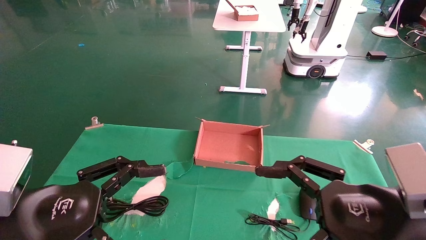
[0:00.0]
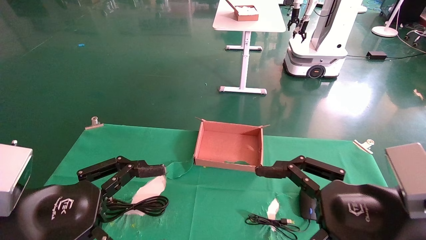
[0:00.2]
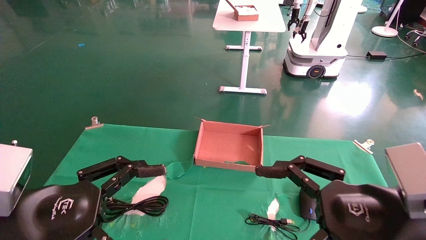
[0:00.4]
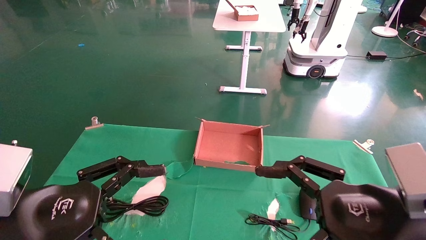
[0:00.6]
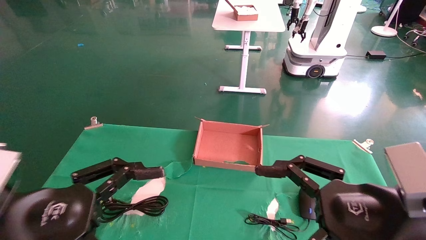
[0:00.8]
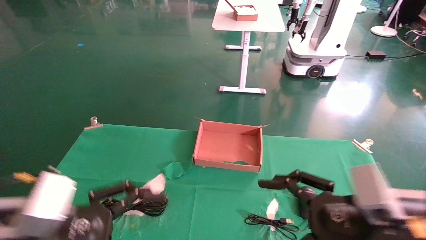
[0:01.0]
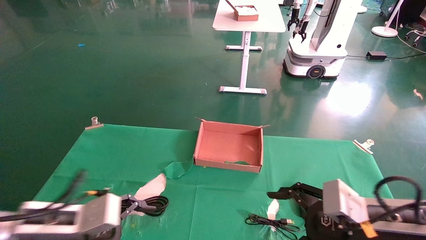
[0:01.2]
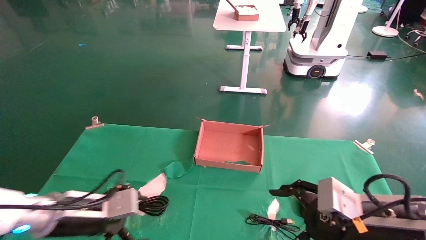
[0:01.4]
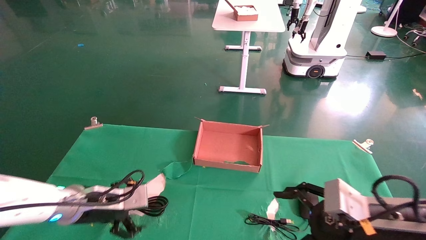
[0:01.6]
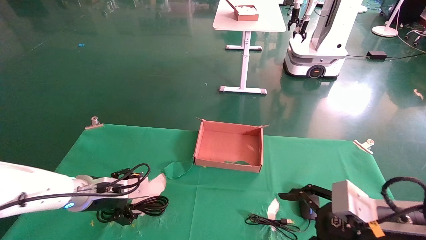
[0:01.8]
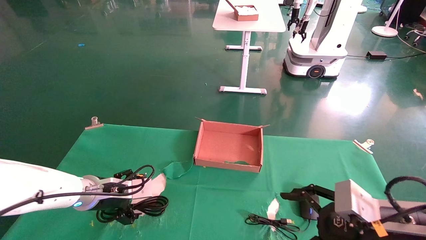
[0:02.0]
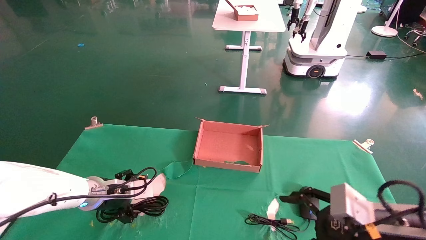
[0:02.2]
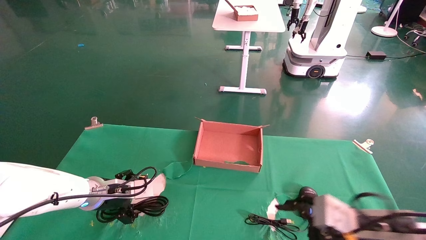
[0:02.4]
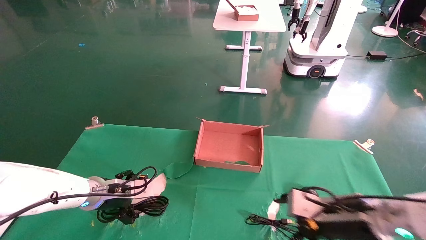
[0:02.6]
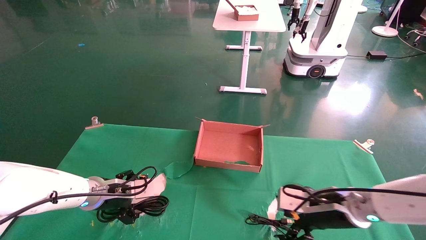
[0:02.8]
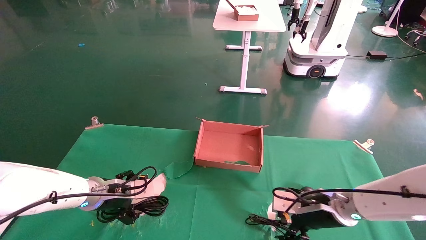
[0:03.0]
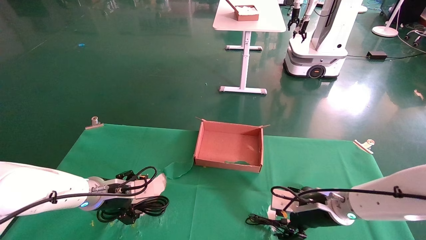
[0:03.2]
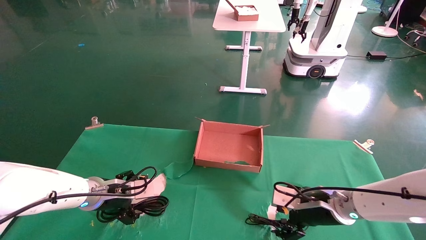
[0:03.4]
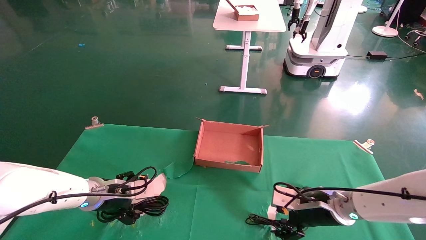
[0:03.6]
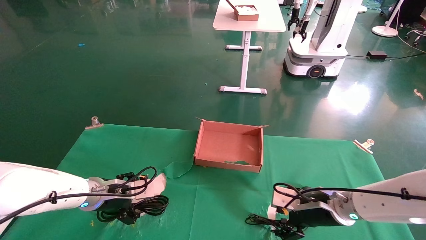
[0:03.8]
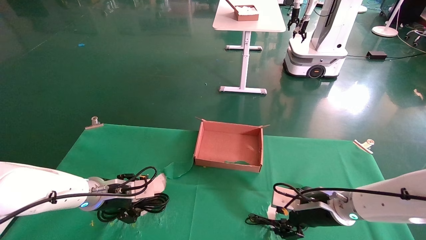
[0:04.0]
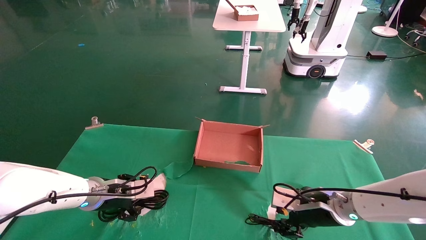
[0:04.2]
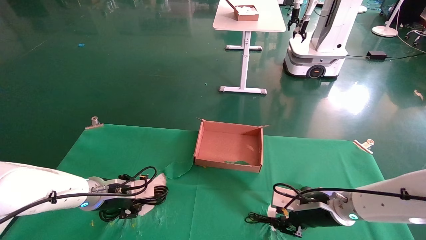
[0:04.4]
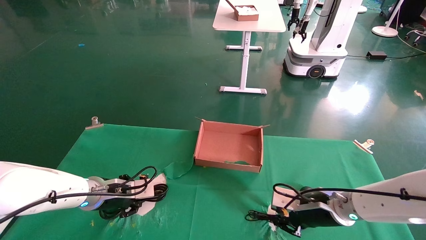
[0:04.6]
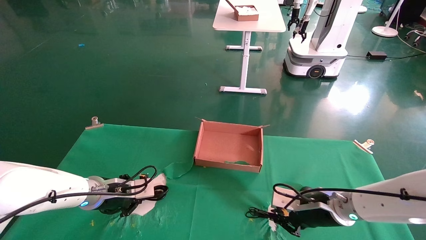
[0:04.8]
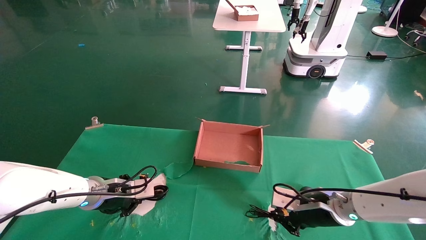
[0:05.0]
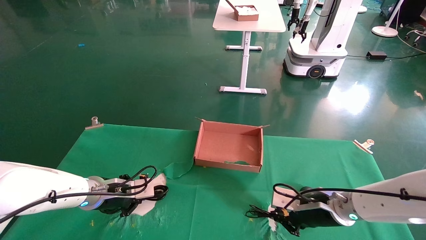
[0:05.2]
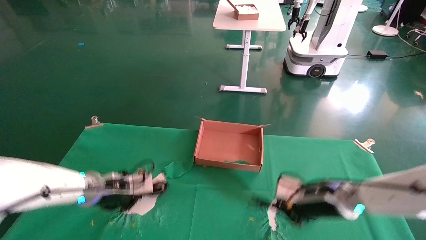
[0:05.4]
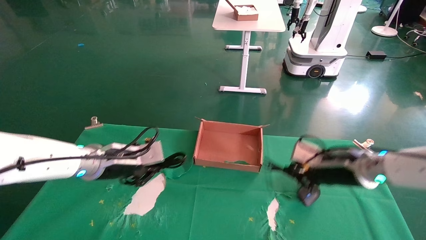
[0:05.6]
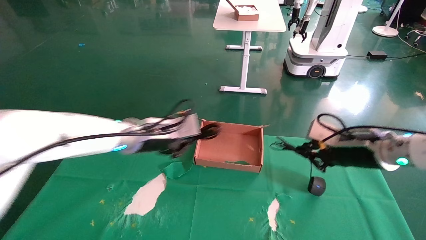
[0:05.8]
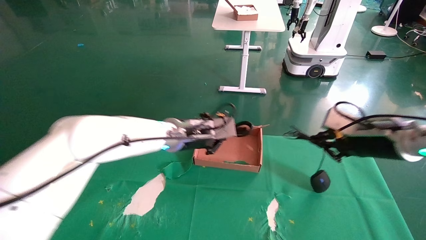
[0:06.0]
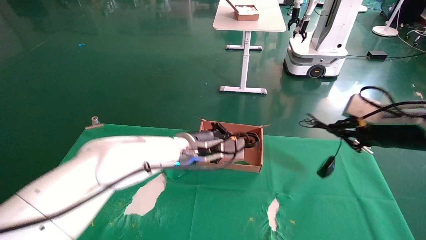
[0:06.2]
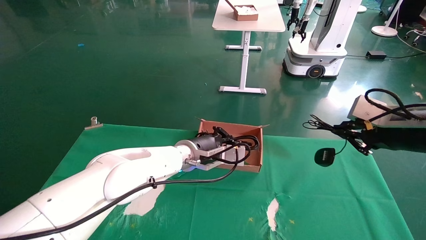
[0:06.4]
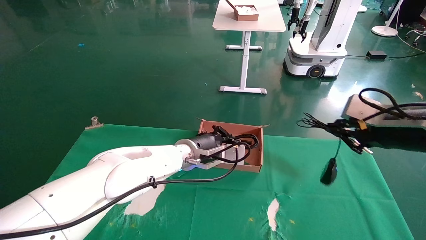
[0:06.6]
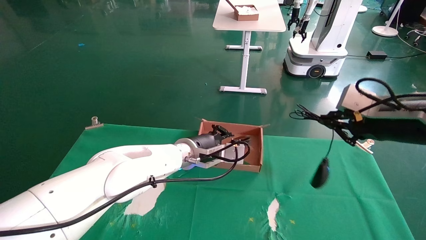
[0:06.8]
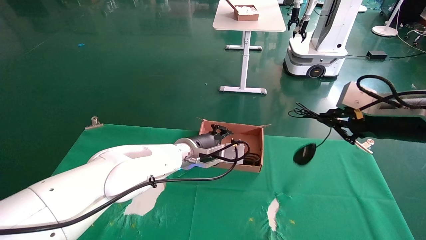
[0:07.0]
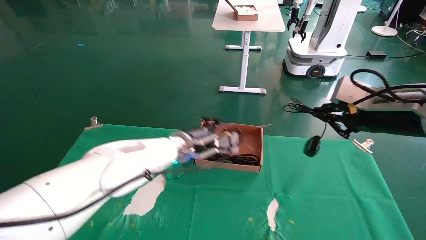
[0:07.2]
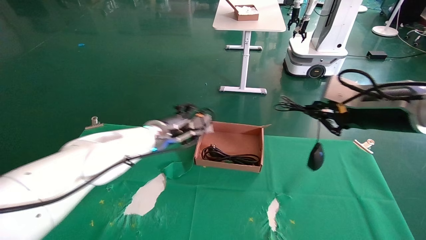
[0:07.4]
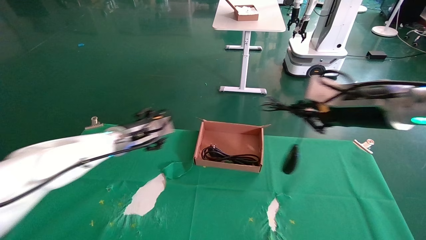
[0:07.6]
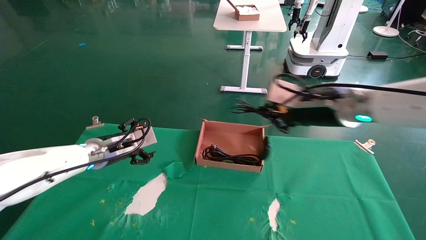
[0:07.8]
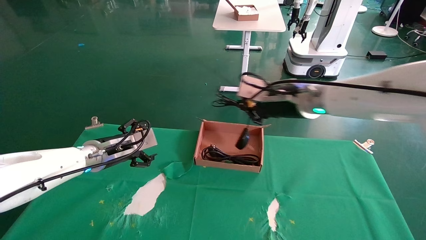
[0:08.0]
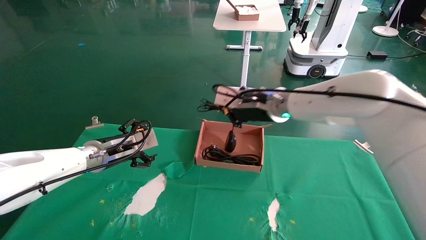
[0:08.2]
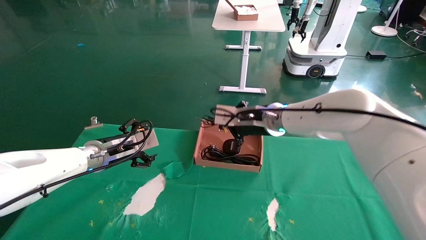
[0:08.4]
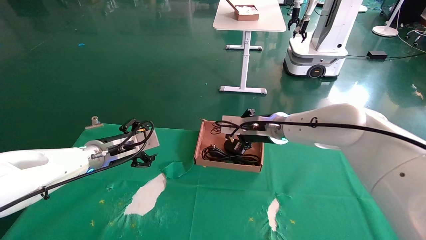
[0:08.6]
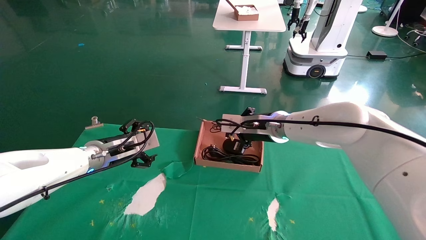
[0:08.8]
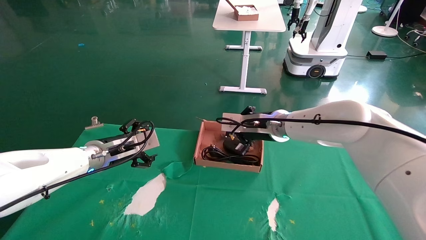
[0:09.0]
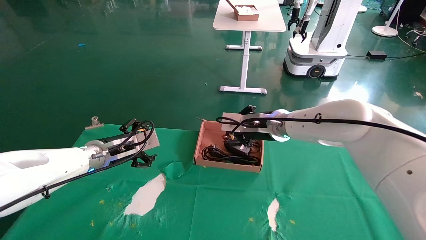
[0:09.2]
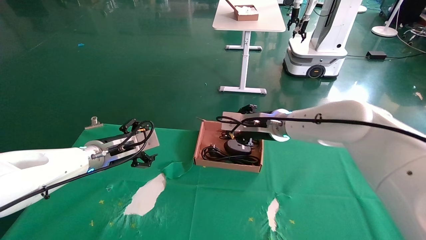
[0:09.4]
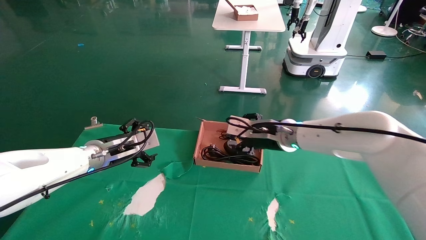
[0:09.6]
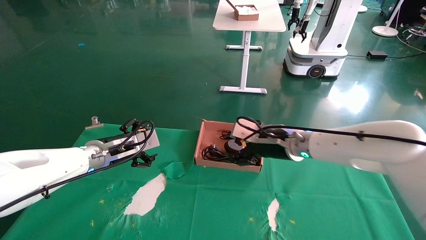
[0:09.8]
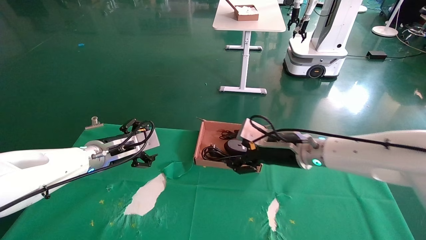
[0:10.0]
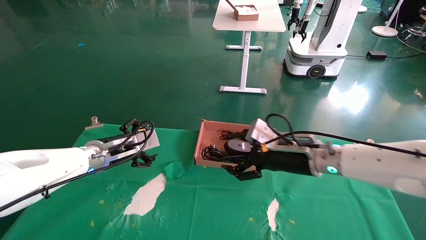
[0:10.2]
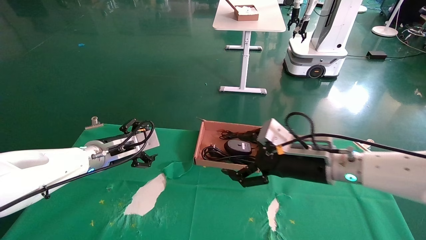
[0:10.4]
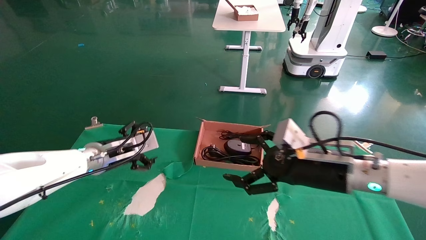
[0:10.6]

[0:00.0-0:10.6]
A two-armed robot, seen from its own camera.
Step, 0:01.0 to 0:05.4: Grab and lift both the mouse and power cord from the accessory packaging area at the same time.
Step, 0:05.6 to 0:10.2: Place the mouse and power cord into the box.
0:00.0 to 0:01.6: The right gripper shifts approximately 10 cm downward and forward. Meanwhile the left gripper is displaced forward and downward by approximately 20 cm.
0:01.6 to 0:03.0: The left gripper is displaced forward by some 5 cm. Meanwhile the right gripper is displaced forward and downward by roughly 15 cm.
0:03.0 to 0:04.6: The right gripper closes up. Meanwhile the left gripper closes its fingers.
0:04.6 to 0:06.0: The right gripper moves upward and to the right, roughly 20 cm, and closes up; the left gripper goes some 20 cm to the right and upward.
0:06.0 to 0:07.6: The right gripper heads to the left and upward, covering some 10 cm; the left gripper travels to the left by approximately 10 cm, and opens.
0:07.6 to 0:09.0: The right gripper shifts roughly 20 cm to the left, forward and downward. Meanwhile the left gripper moves some 5 cm.
0:09.0 to 0:10.6: The right gripper heads backward and to the right, covering about 15 cm, and opens.

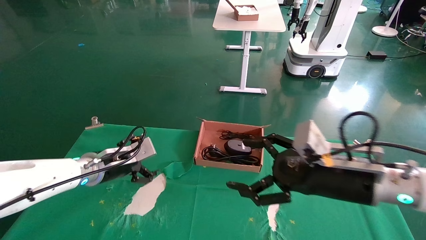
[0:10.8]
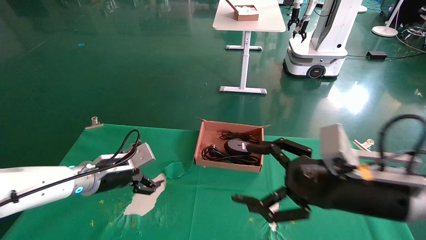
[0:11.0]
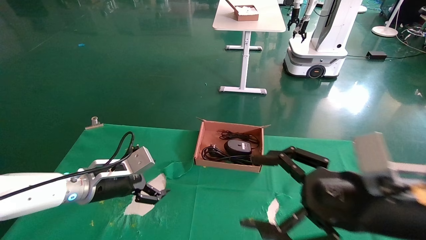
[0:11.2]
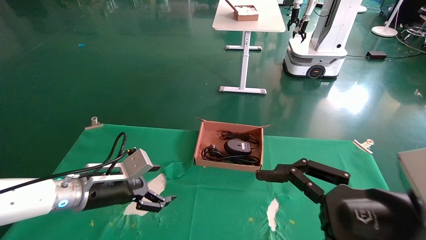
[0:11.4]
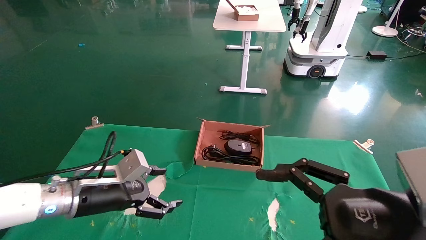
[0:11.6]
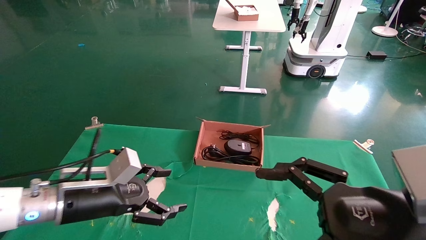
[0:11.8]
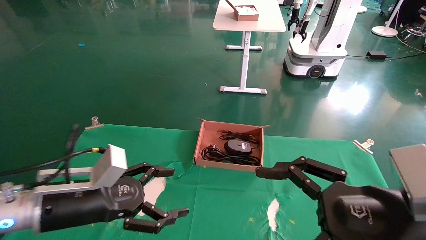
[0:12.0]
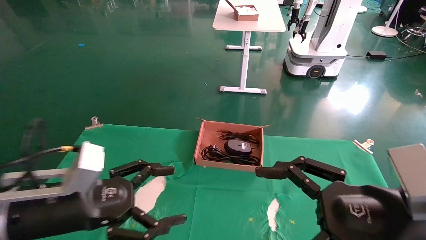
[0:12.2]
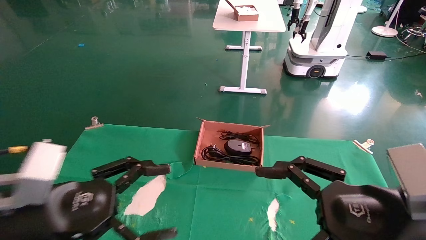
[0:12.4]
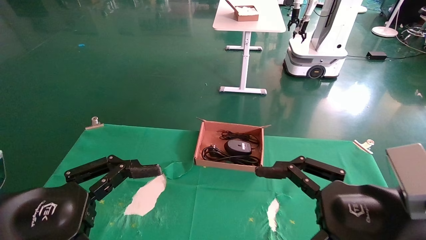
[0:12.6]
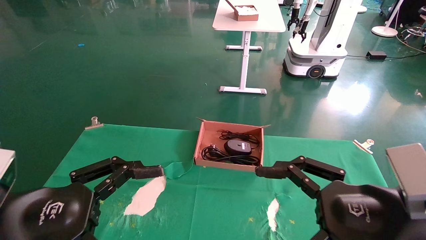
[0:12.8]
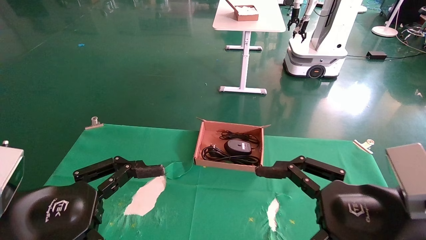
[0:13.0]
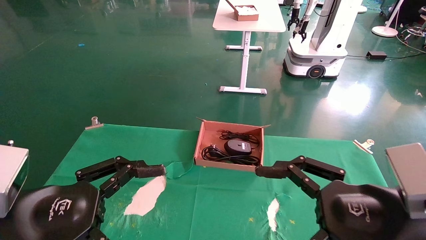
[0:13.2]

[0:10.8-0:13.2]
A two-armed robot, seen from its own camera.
0:10.8 to 0:12.0: Both grippers travel together backward, about 15 cm.
0:12.0 to 0:13.2: The left gripper heads backward, covering about 10 cm.

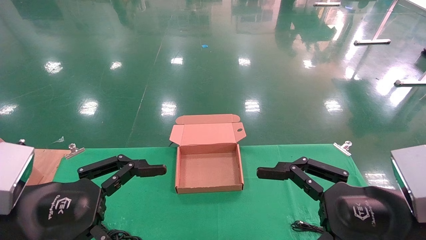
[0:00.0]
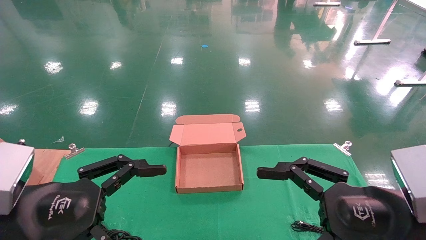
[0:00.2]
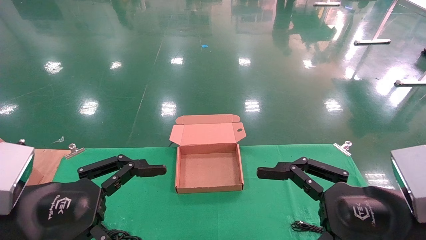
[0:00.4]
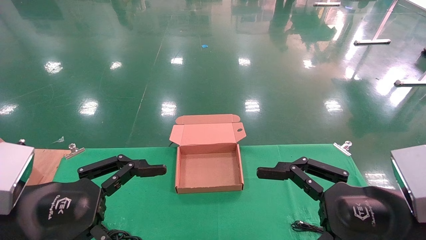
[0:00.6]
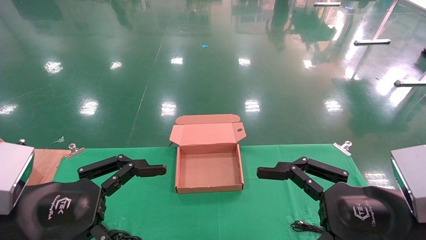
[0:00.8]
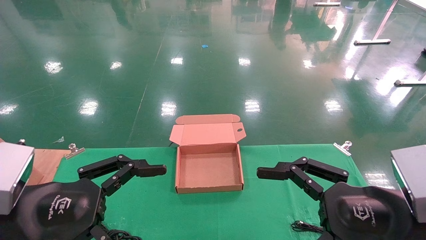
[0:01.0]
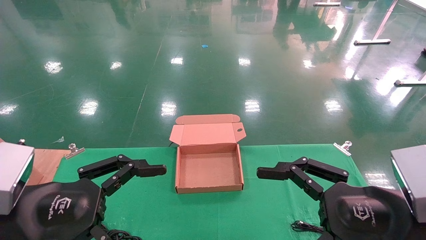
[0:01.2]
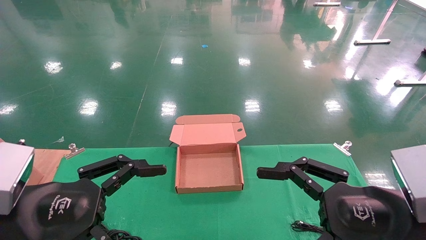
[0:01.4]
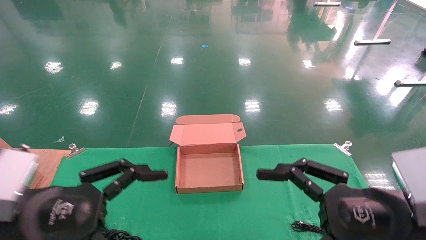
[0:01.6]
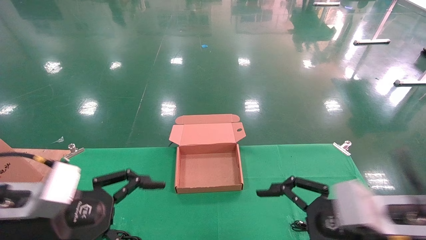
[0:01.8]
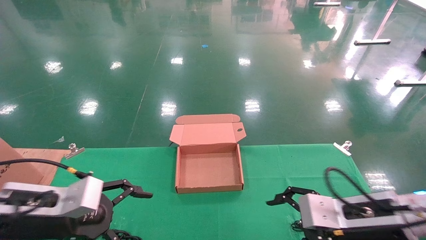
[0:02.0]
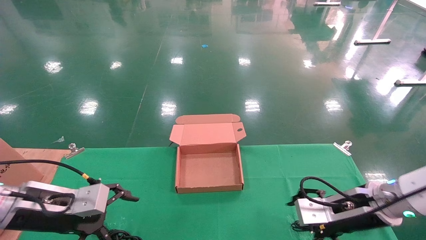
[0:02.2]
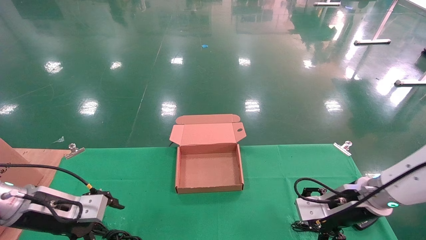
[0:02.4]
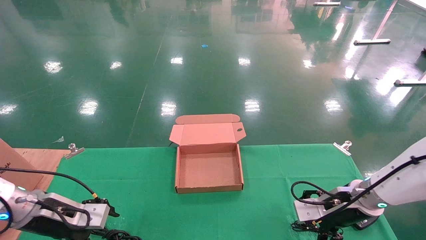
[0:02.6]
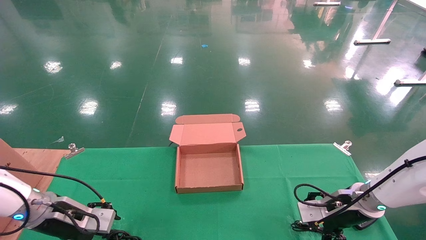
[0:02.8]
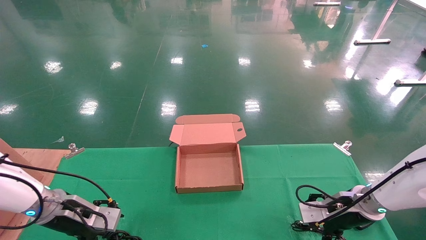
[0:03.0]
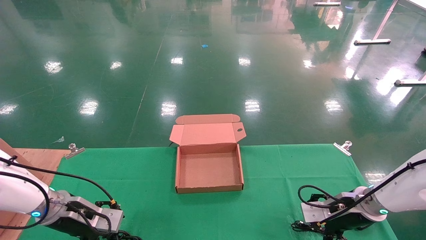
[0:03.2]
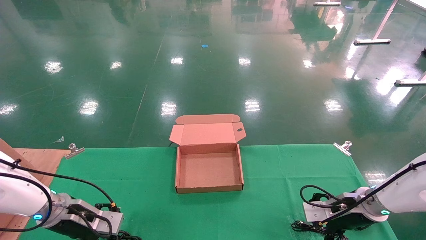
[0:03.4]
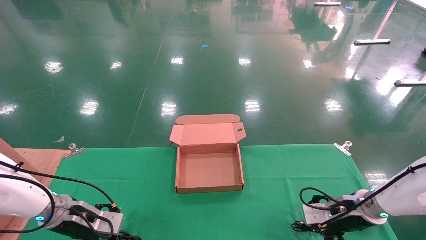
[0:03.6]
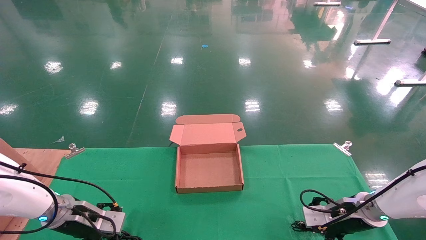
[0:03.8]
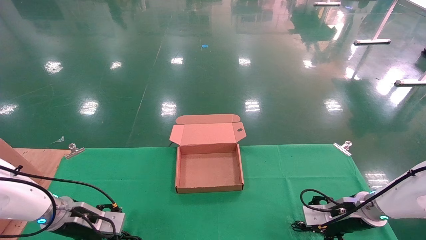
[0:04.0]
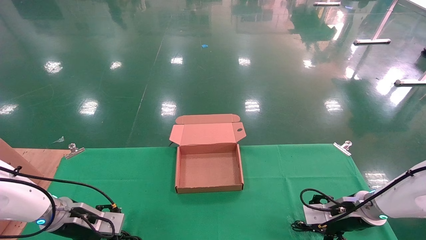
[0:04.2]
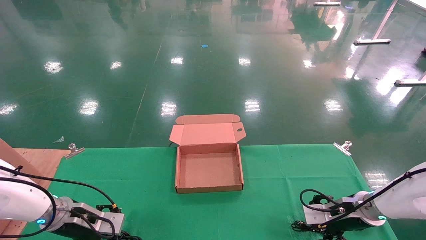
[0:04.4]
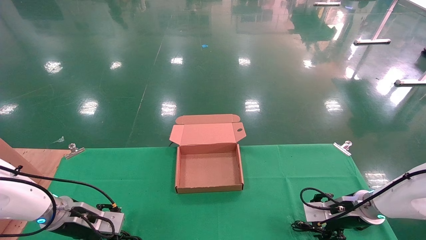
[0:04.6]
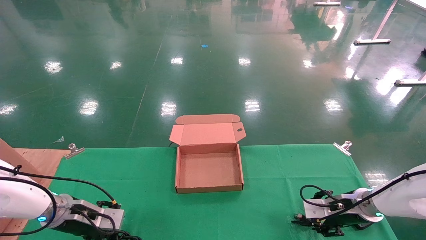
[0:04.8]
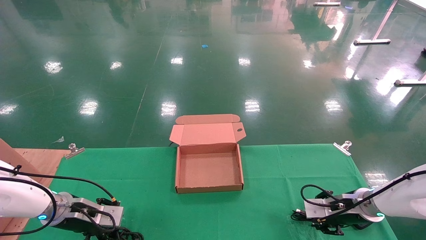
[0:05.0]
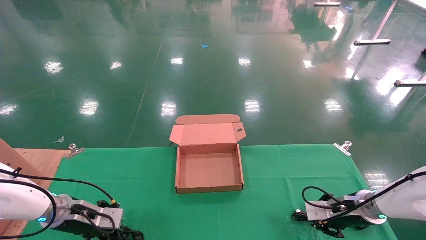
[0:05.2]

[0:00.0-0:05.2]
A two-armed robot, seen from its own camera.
0:00.0 to 0:01.8: Both grippers travel together forward, roughly 5 cm.
0:01.8 to 0:03.4: The two grippers go approximately 20 cm forward and downward.
0:03.4 to 0:05.2: The left gripper closes; the right gripper closes.
